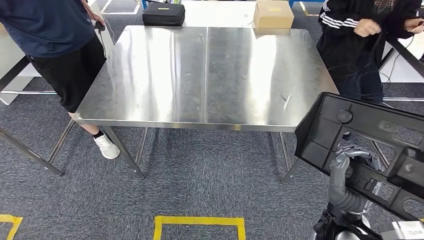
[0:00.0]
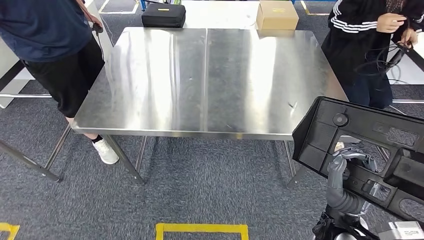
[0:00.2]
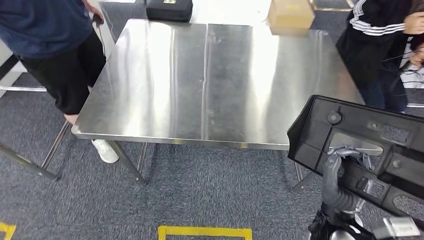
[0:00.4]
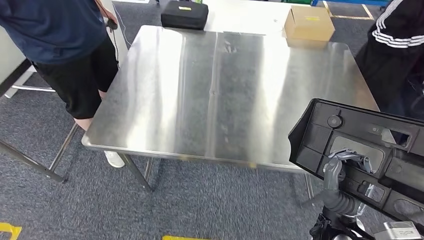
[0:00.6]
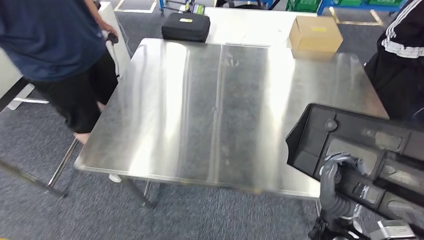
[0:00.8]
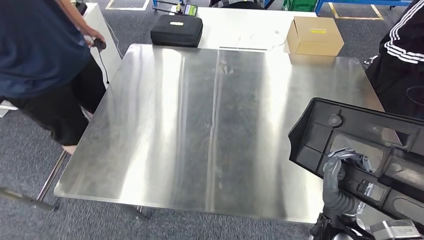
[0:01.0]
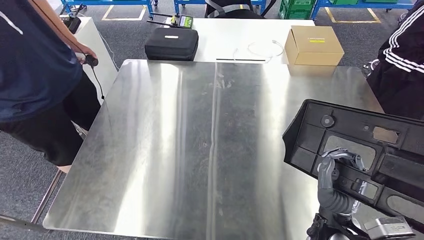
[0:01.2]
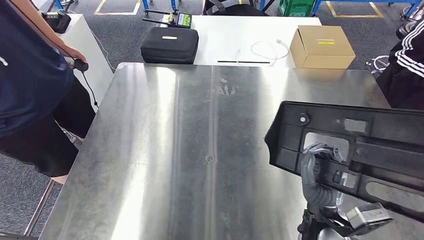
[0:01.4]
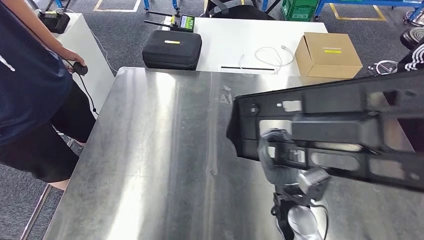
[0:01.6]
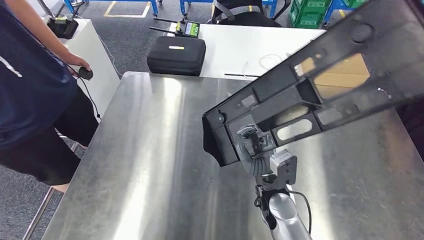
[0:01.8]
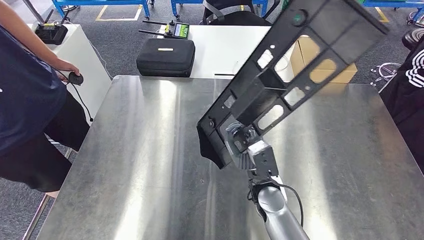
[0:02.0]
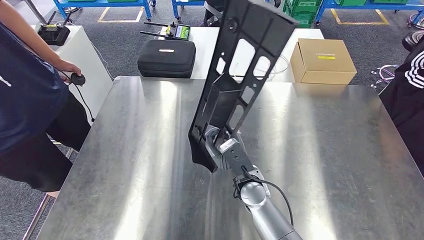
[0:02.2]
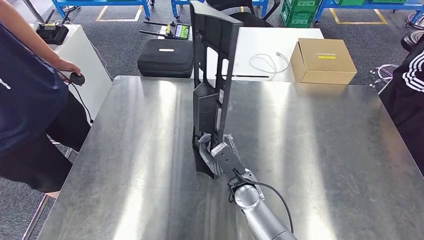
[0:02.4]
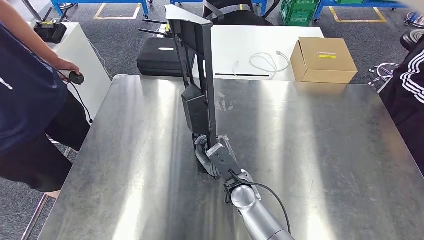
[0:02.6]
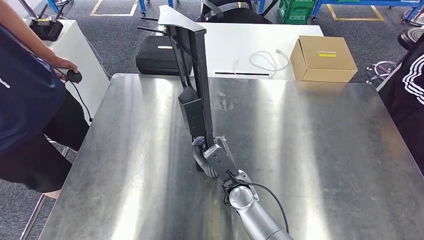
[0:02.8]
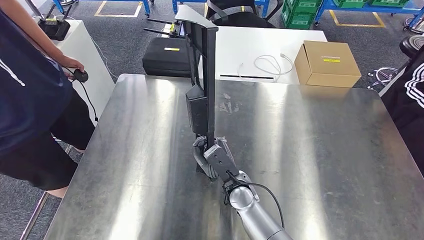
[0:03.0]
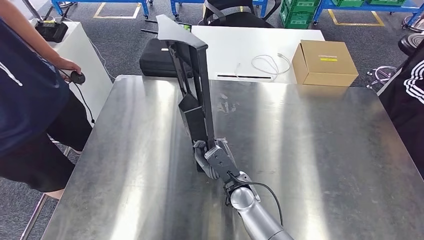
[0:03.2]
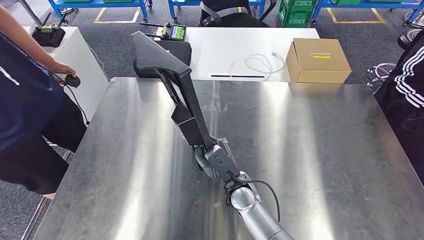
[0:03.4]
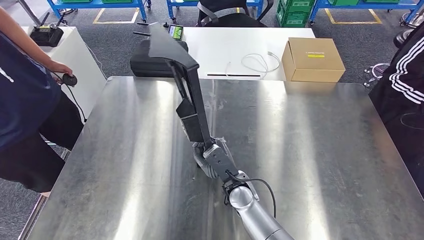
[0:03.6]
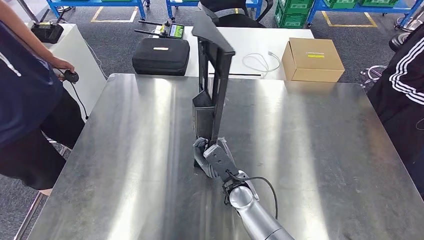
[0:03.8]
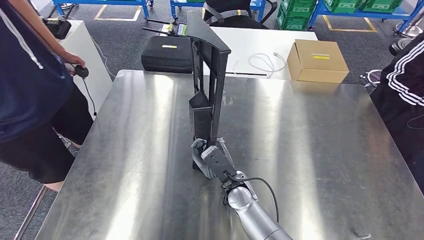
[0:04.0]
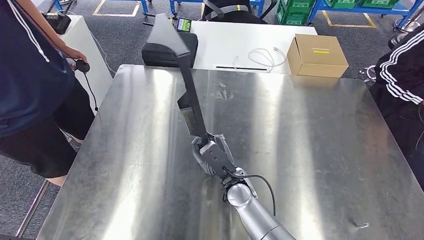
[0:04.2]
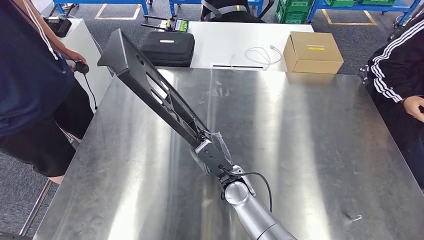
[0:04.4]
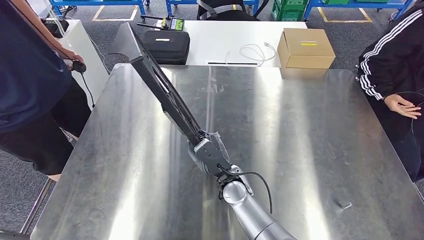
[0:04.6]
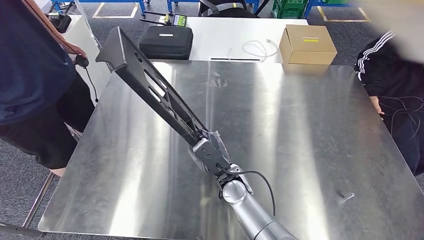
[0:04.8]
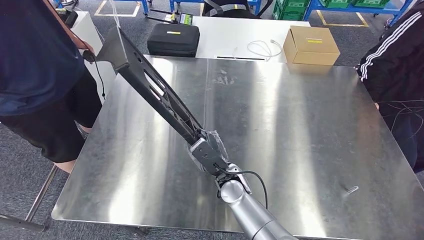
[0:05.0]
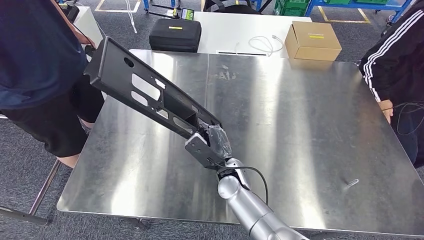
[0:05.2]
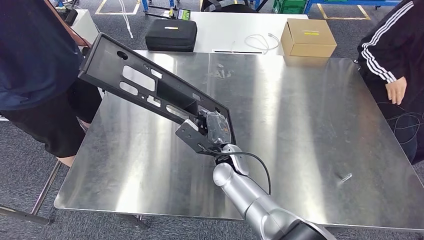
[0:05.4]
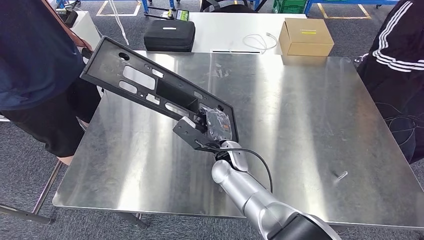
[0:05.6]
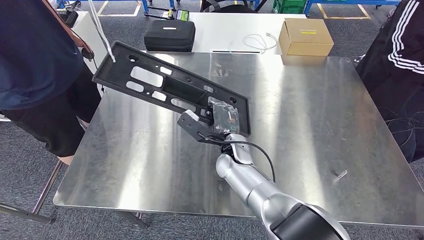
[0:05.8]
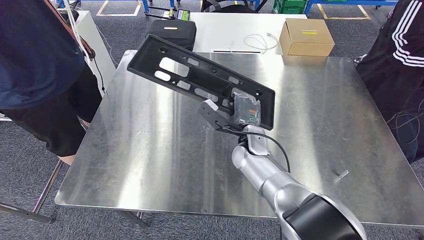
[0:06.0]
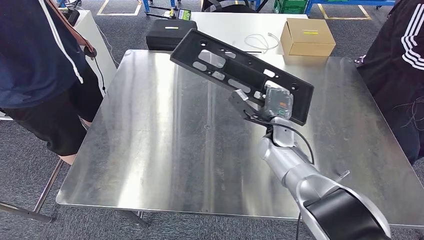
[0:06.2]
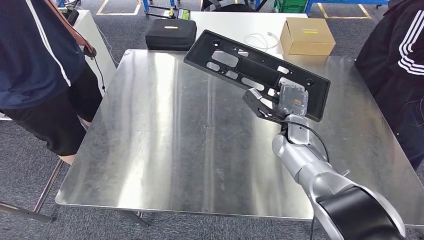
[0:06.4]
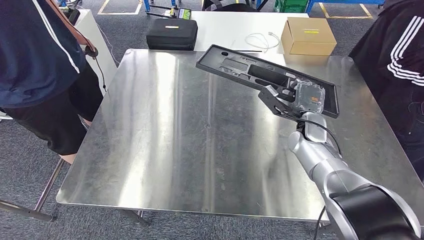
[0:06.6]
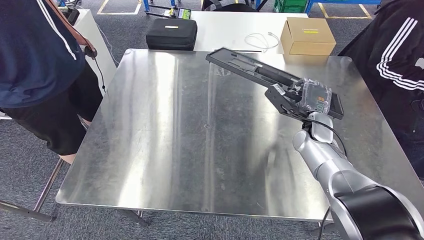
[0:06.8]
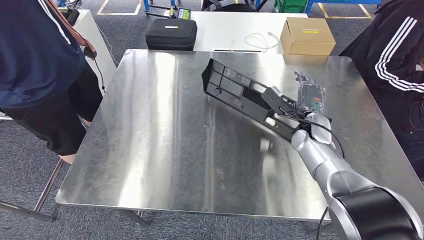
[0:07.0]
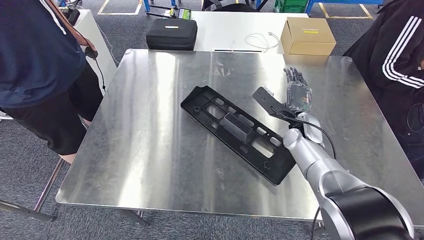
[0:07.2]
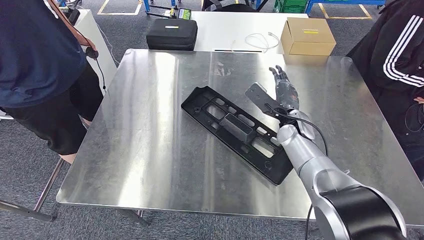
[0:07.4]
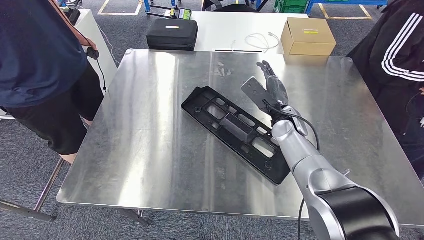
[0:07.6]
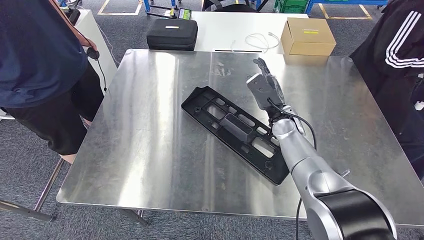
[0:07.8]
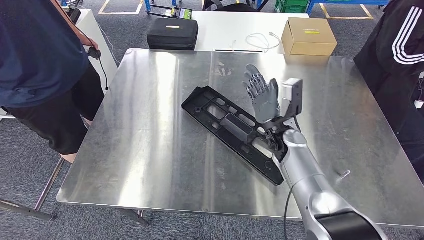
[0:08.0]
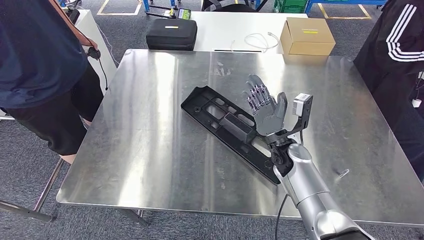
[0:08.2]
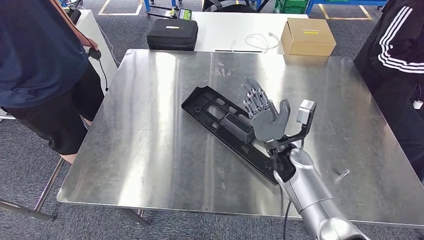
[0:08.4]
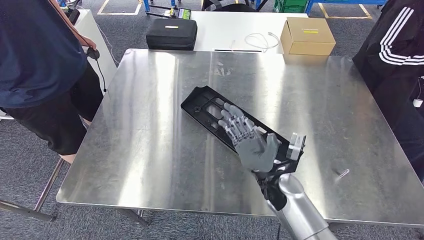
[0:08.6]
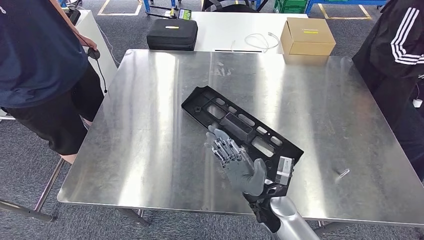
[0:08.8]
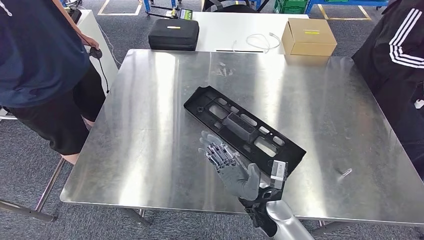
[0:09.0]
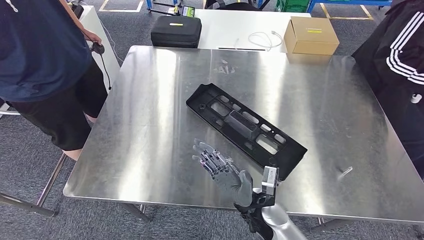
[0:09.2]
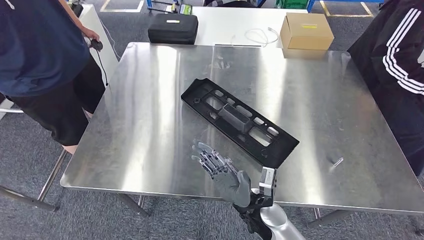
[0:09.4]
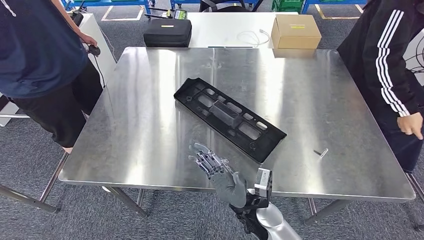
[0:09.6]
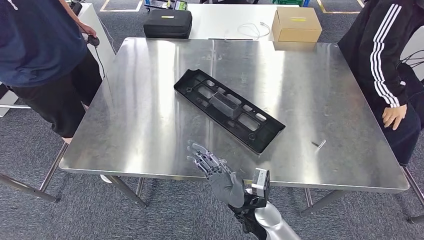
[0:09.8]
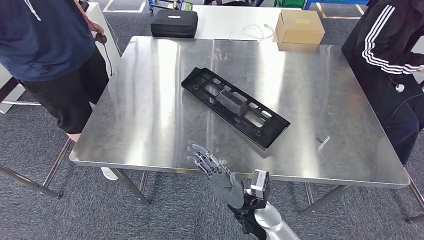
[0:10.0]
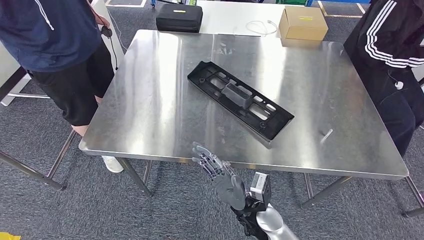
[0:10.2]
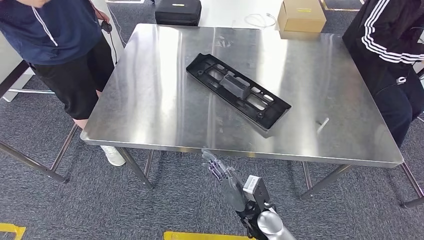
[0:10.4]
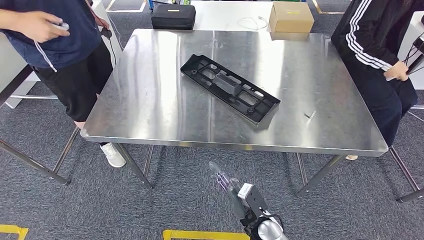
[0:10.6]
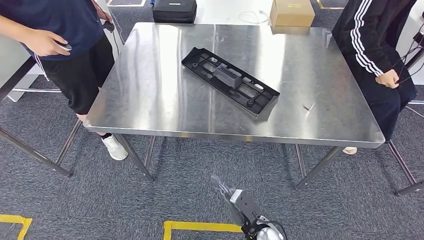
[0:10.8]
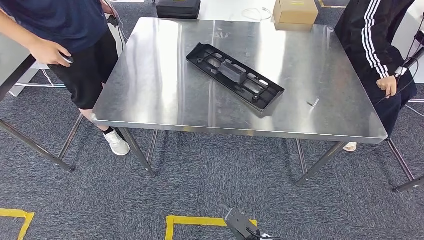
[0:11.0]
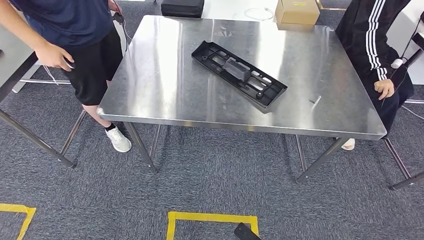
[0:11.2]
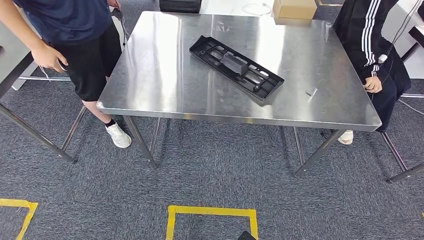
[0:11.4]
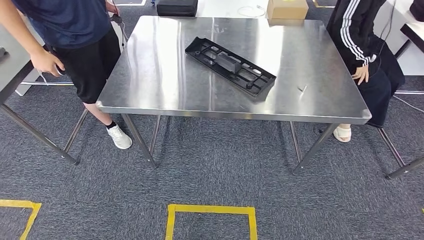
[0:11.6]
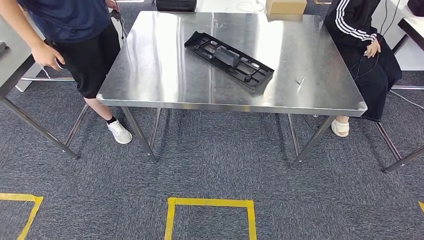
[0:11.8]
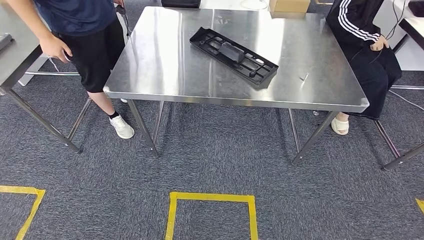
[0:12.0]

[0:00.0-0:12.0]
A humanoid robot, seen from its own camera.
Step, 0:00.0 to 0:11.0: Insert the large material into the corresponding slot on the workbench.
0:07.6 to 0:09.0: The right hand heads backward, downward and to the left, covering about 20 cm.

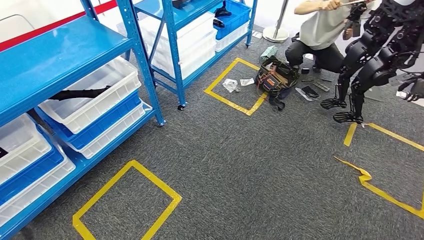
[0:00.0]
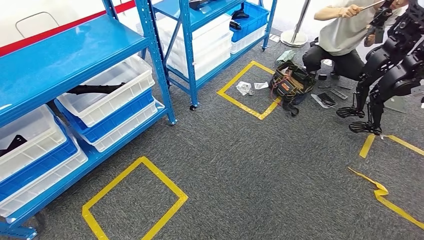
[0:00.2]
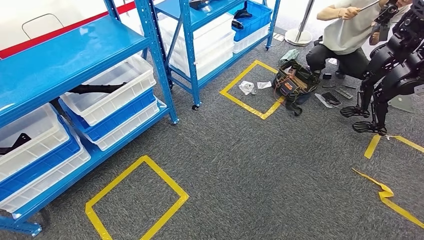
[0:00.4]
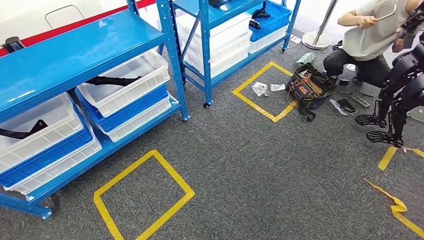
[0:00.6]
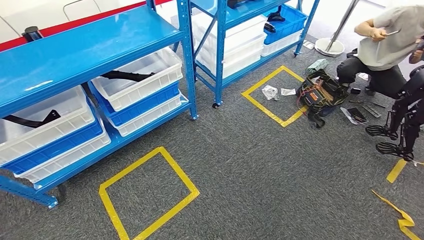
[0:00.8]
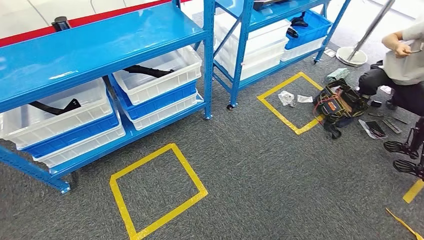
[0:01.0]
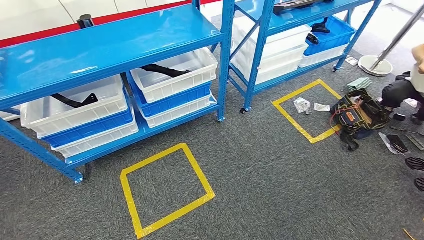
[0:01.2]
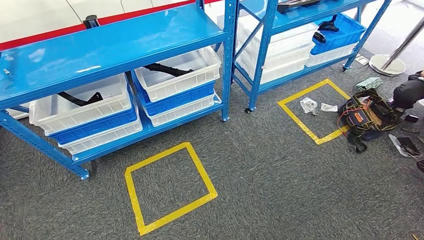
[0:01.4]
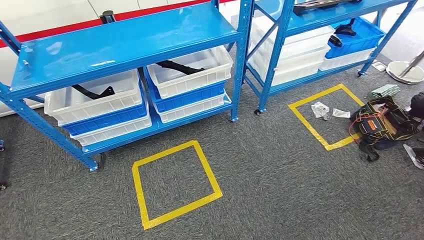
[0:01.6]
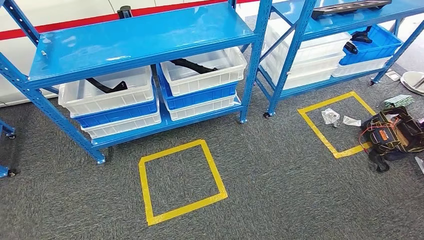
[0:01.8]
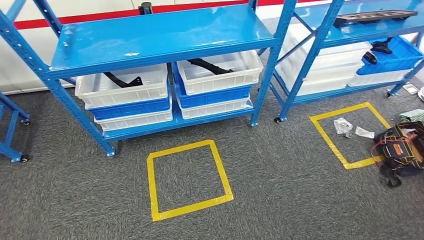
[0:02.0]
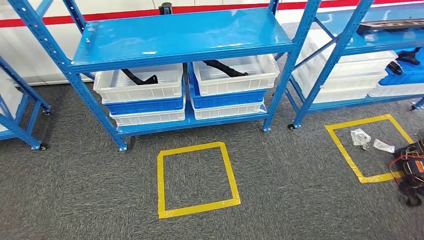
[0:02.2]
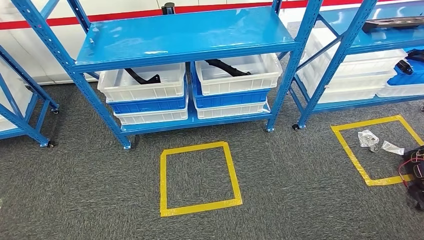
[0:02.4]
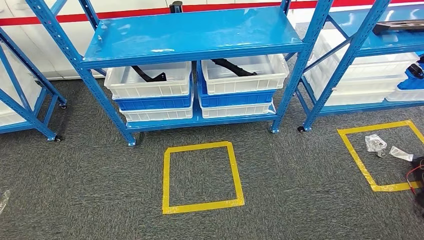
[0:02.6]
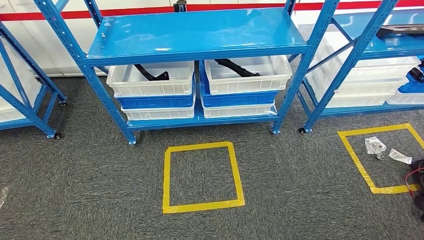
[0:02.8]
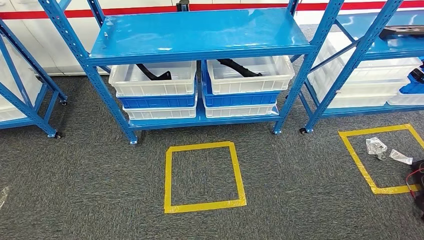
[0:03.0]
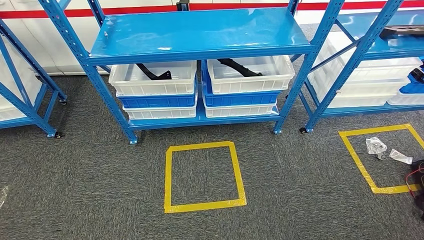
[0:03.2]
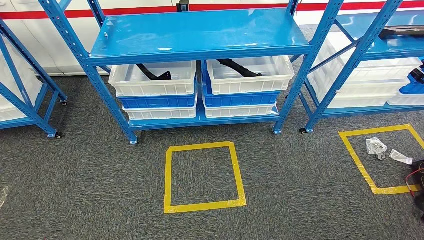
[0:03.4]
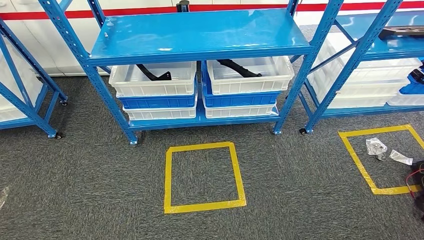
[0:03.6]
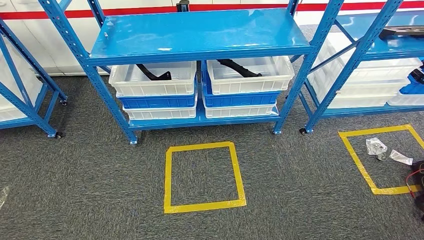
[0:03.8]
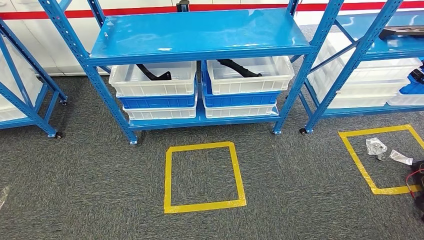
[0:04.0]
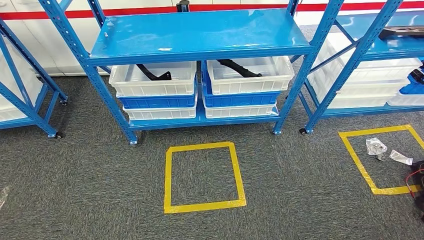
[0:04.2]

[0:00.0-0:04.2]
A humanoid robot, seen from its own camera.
Step, 0:00.0 to 0:04.2: Move to the initial position of the shelf.
0:02.8 to 0:04.2: The left hand goes some 5 cm to the left.
